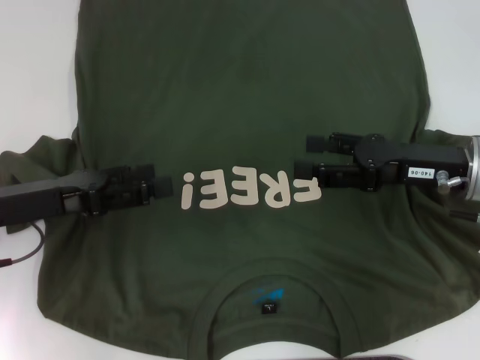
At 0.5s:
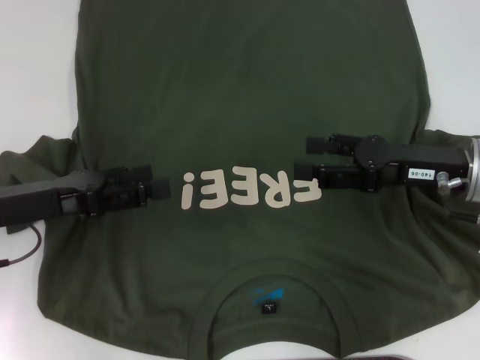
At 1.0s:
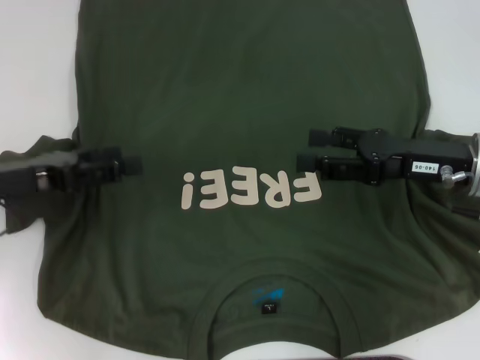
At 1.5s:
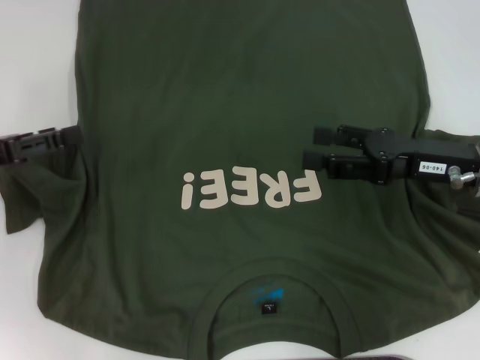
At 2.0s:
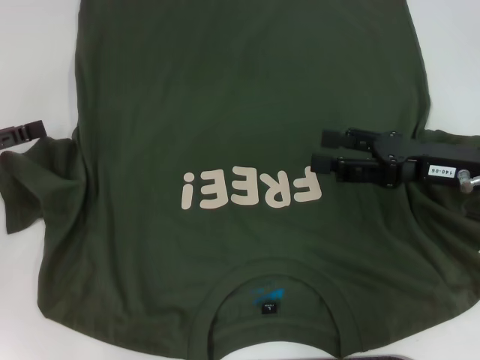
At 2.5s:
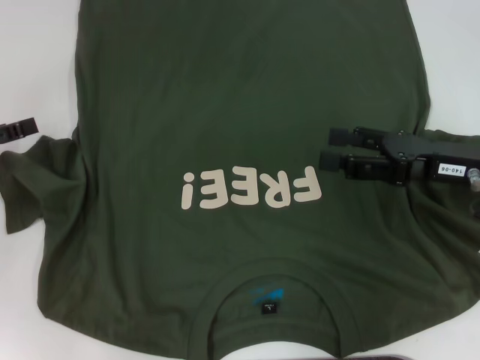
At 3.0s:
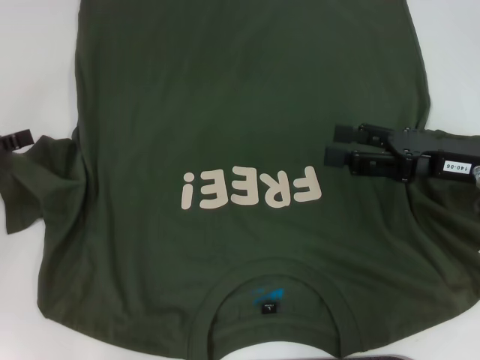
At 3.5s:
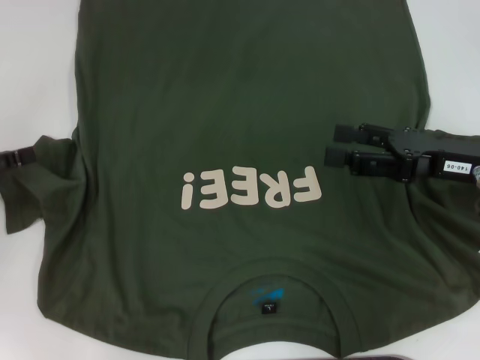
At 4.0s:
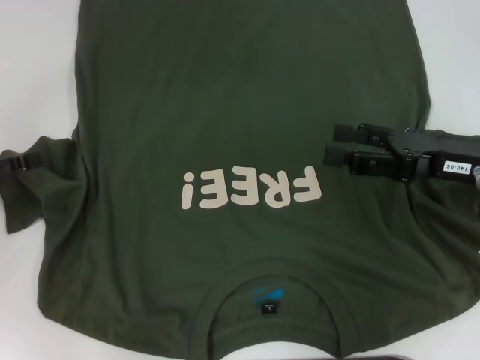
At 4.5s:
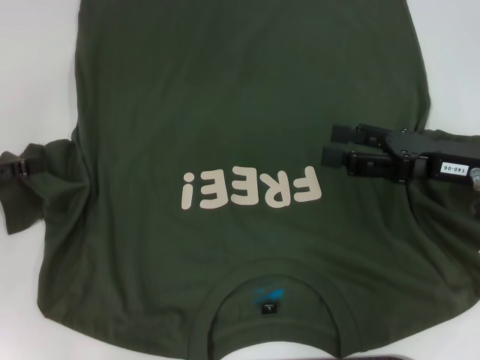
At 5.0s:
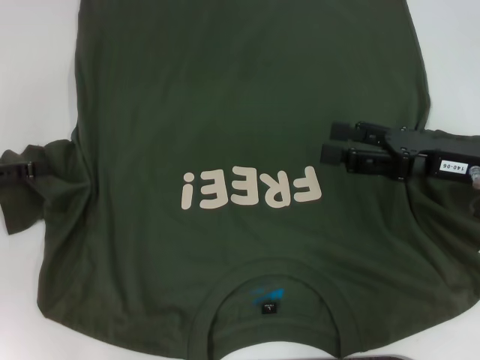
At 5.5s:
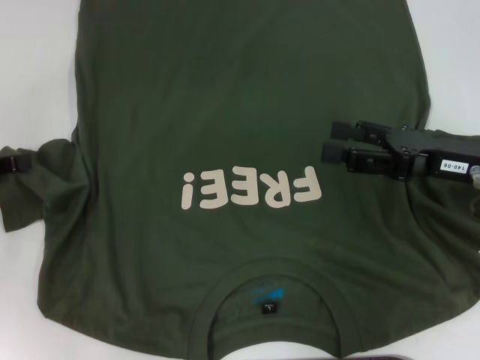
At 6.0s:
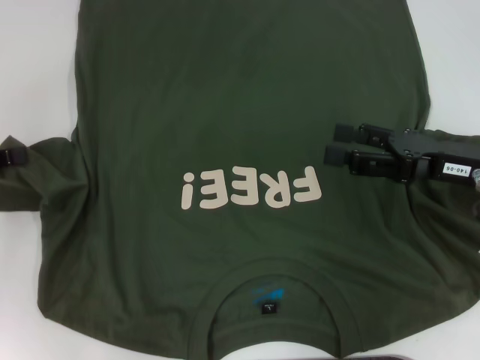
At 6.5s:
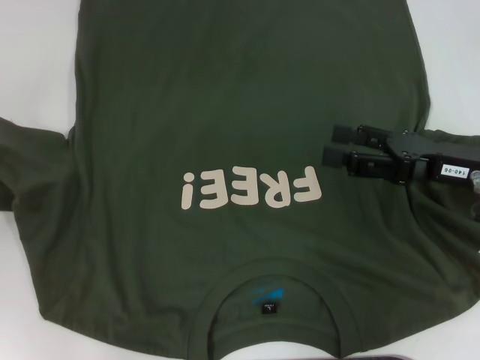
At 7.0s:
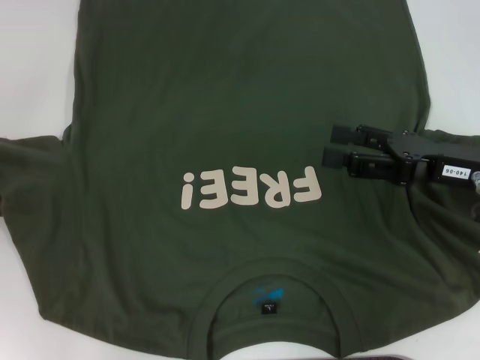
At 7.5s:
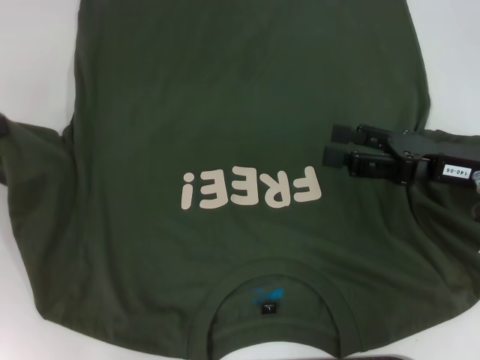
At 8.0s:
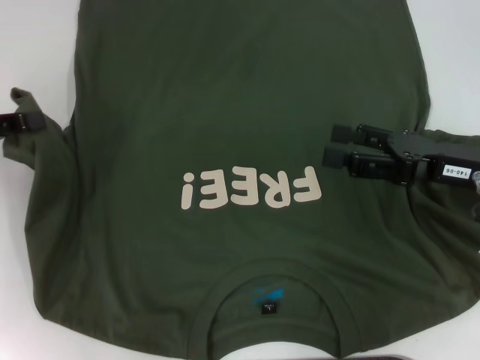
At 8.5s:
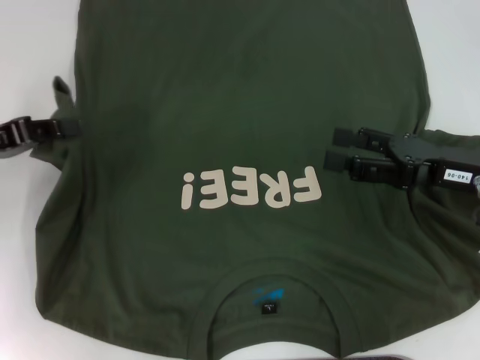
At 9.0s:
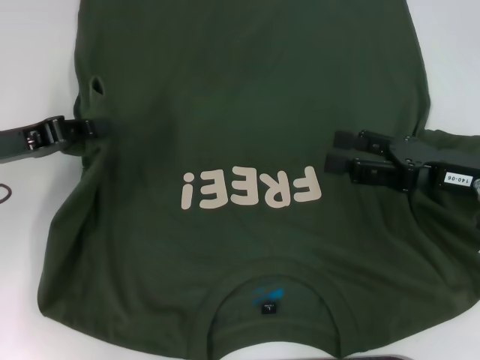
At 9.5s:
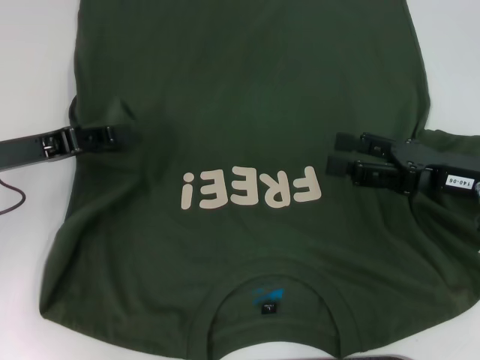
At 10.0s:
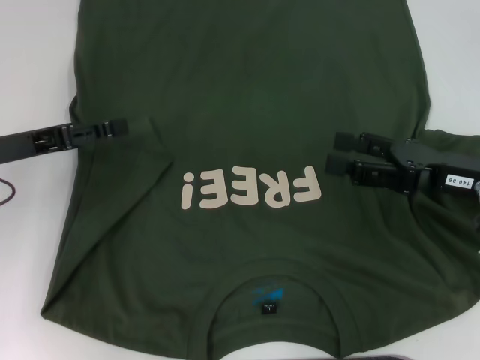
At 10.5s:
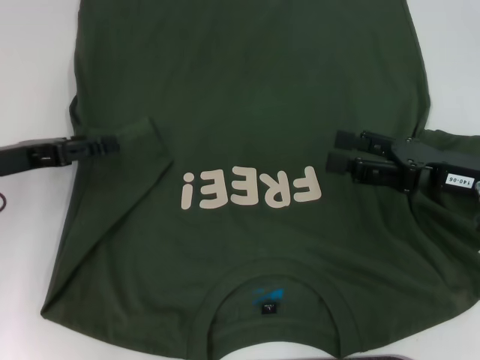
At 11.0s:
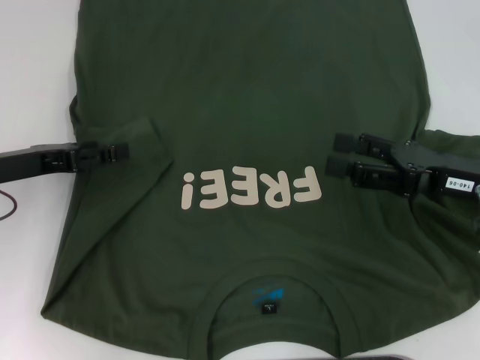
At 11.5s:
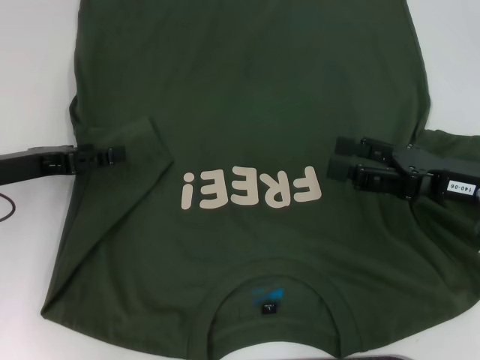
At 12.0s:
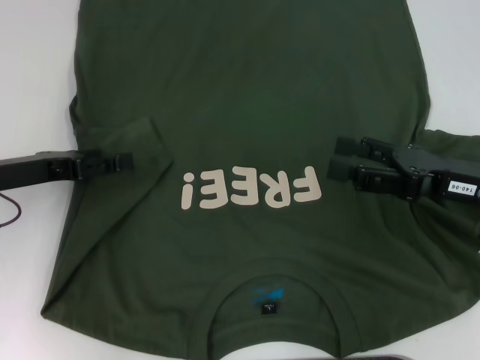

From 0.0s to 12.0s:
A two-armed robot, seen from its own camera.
From 0.0s to 2.0s: The left gripper travels to the left by about 10 cm.
From 2.0s to 4.0s: The grippers make only small movements.
From 4.0s to 6.0s: The left gripper closes up.
From 6.0s to 8.0s: The grippers stay close to where they were, moving slightly.
From 8.0s to 10.0s: The left gripper heads to the right, covering about 5 cm, and opens.
From 10.0s to 12.0s: There are only small adjustments of the grippers.

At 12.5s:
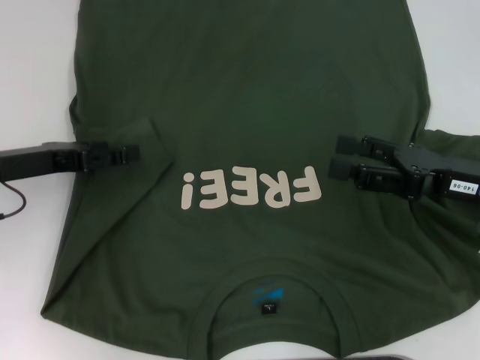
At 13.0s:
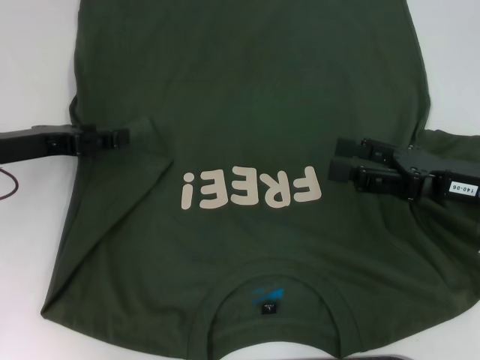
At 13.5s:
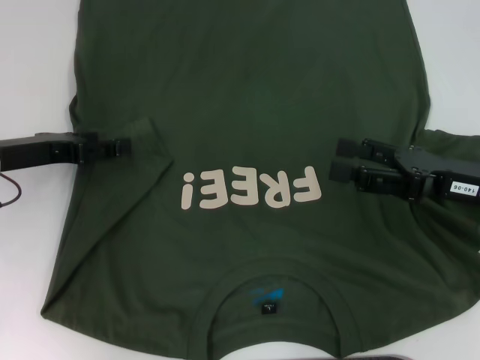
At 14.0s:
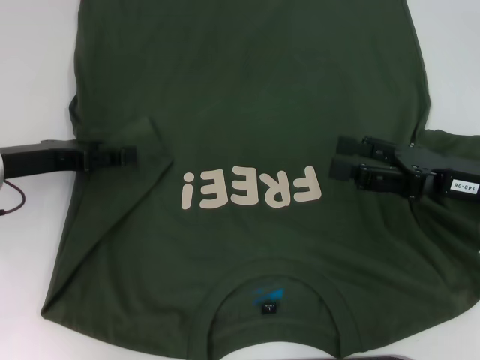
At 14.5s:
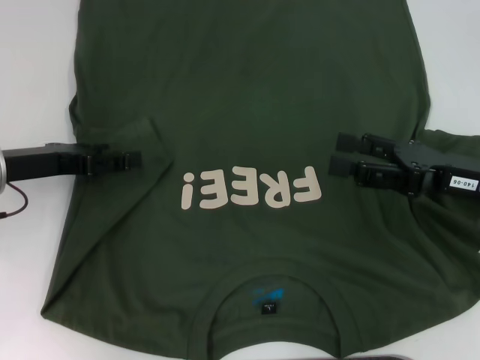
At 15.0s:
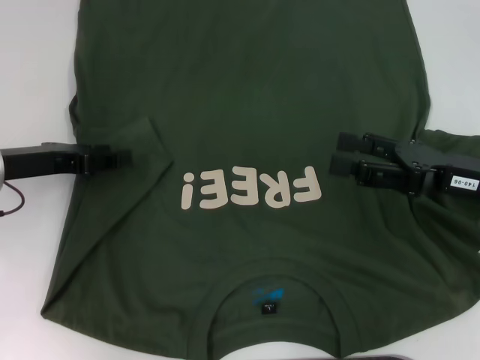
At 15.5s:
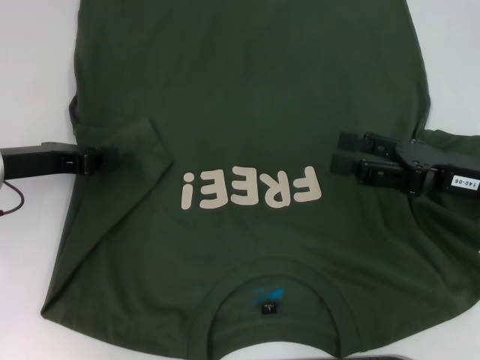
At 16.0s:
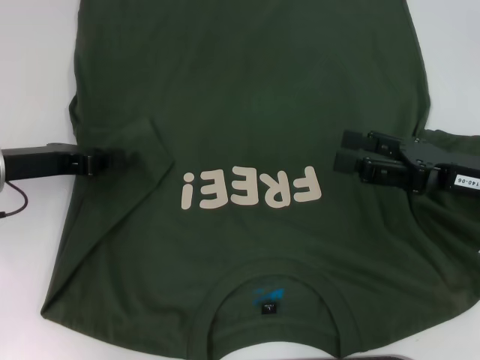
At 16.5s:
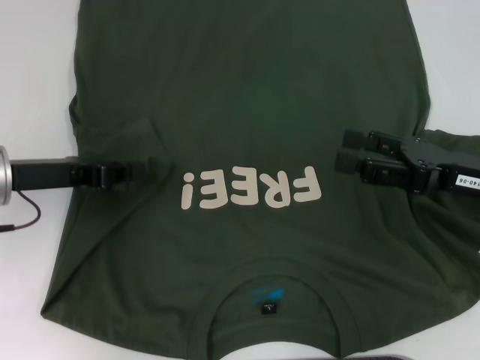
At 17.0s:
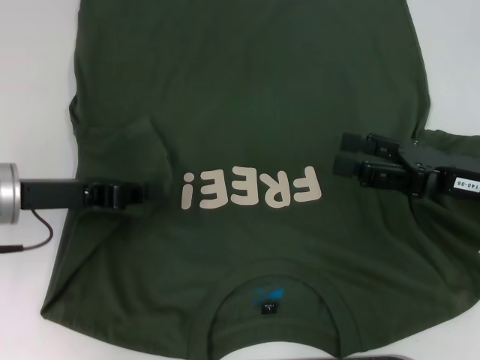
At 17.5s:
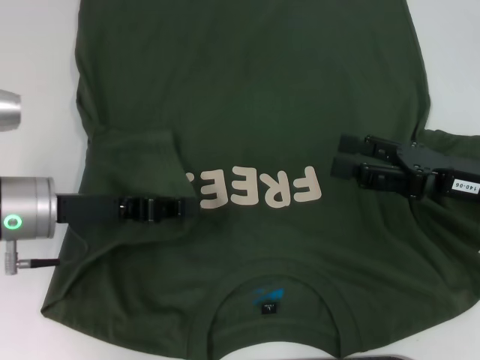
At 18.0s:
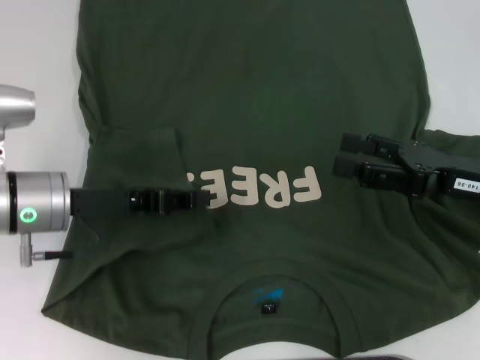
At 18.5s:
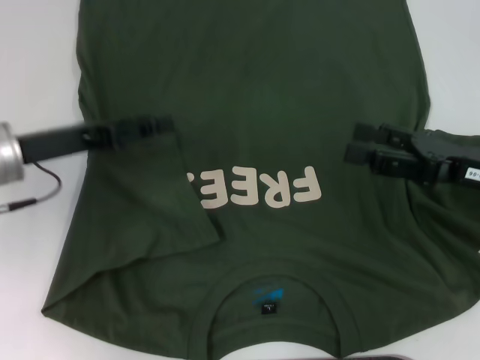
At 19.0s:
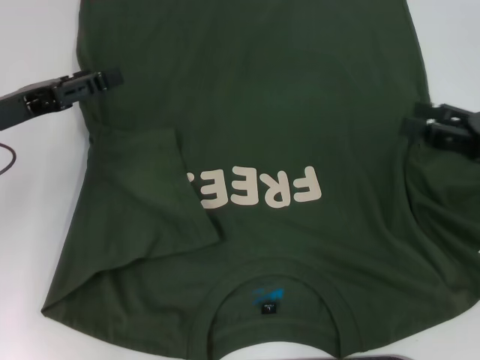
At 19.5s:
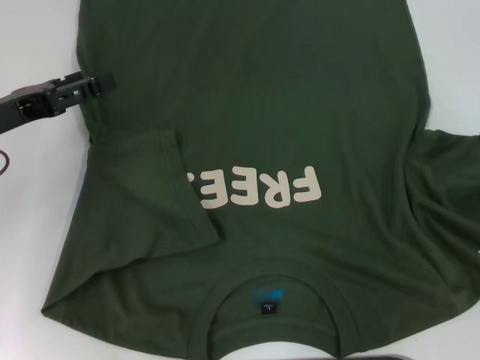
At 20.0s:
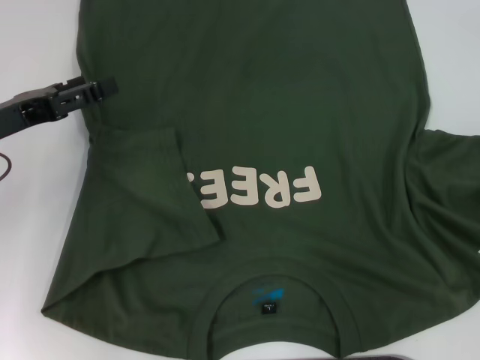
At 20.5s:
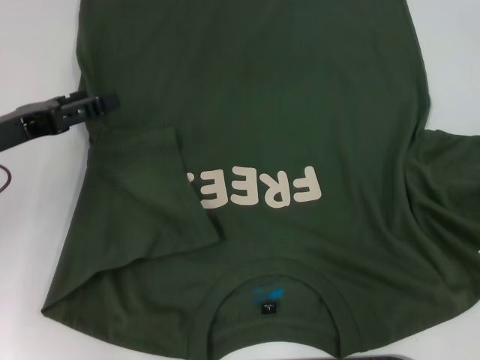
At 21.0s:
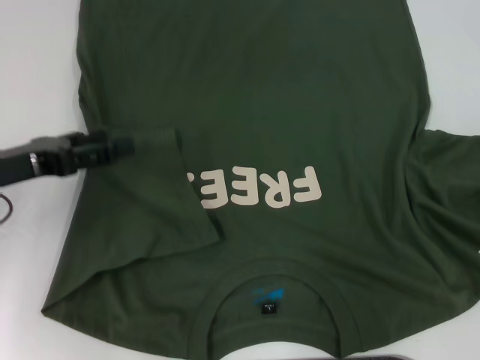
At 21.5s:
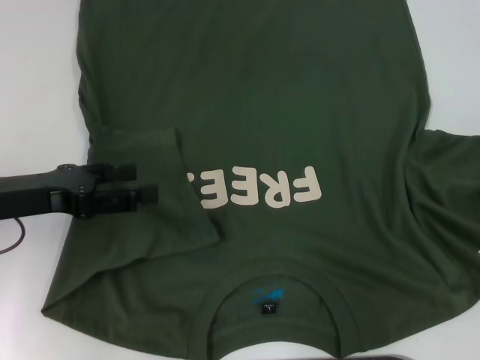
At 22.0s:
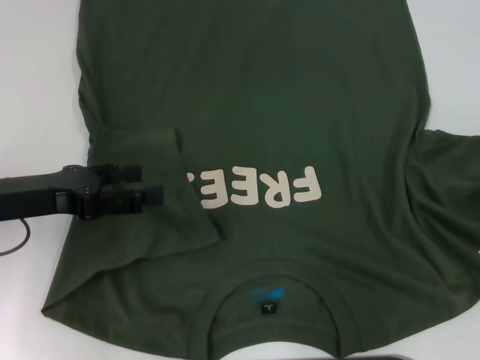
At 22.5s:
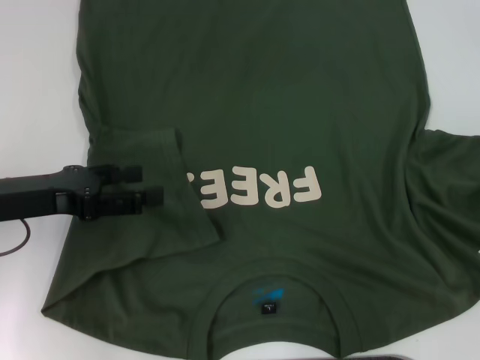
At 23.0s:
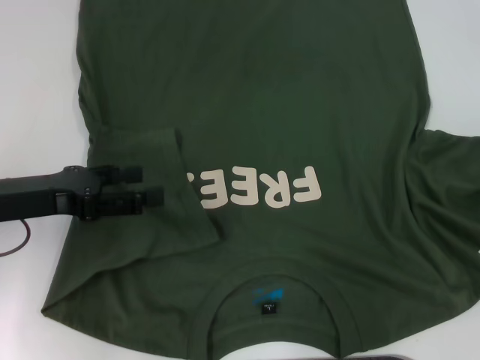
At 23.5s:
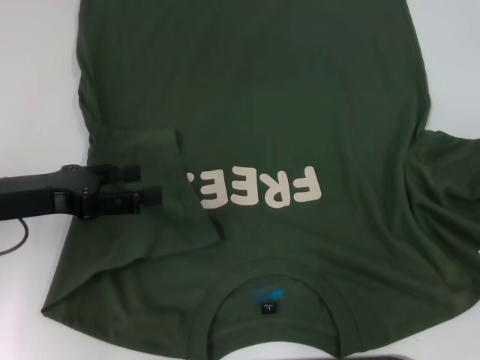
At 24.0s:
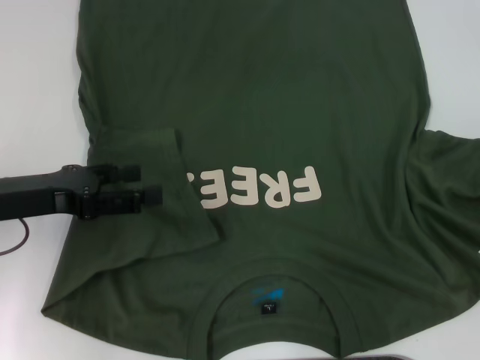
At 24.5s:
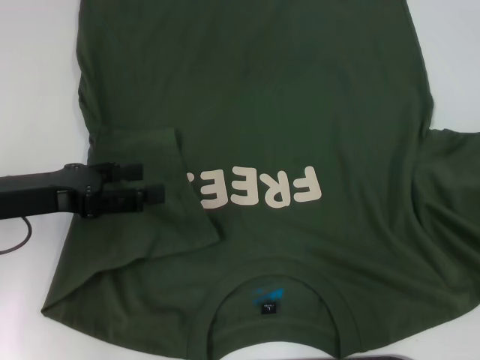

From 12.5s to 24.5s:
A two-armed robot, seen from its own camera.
Step, from 12.5s to 22.0s: Fold the bottom left sleeve with your left hand.
From 12.5s to 14.5s: There are only small adjustments of the grippers.
From 14.5s to 16.5s: The left gripper closes.
From 16.5s to 18.5s: The left gripper opens.
From 18.5s to 20.5s: The left gripper opens up. The right gripper moves to the right, roughly 15 cm.
From 22.5s to 24.5s: The right gripper closes.

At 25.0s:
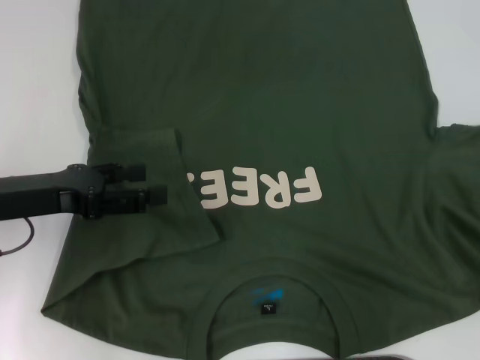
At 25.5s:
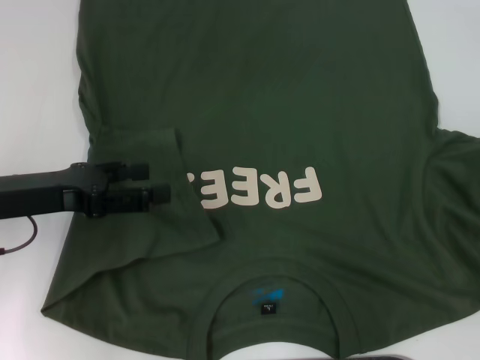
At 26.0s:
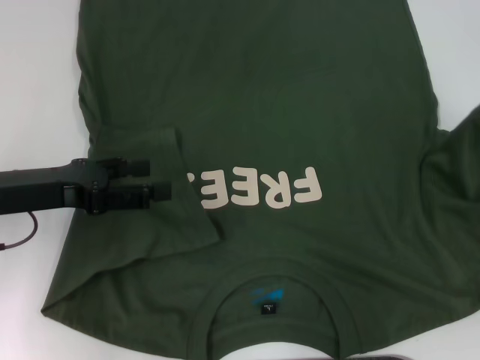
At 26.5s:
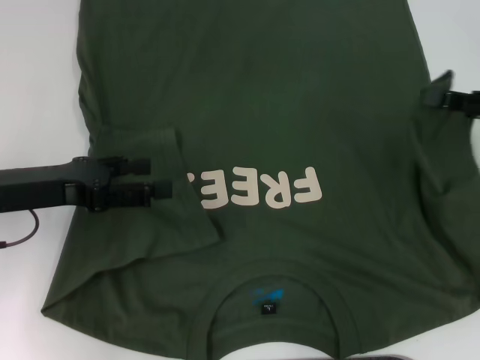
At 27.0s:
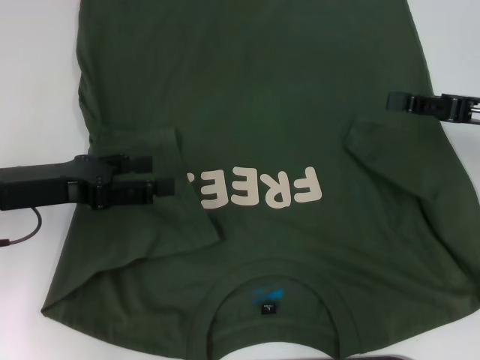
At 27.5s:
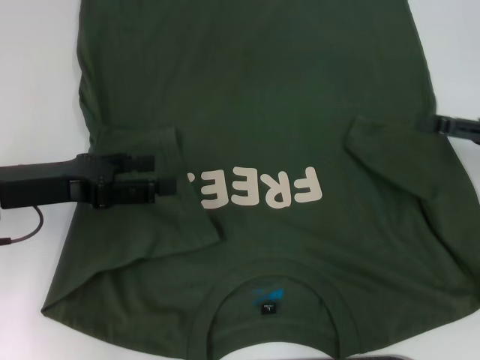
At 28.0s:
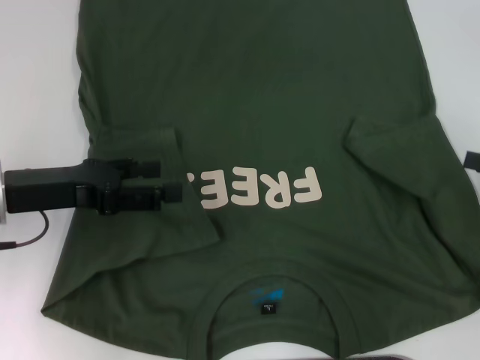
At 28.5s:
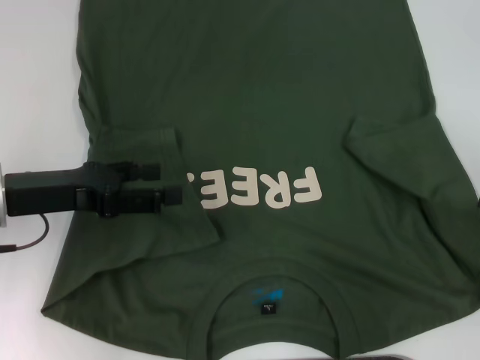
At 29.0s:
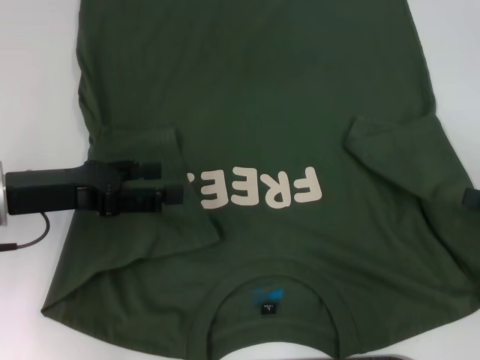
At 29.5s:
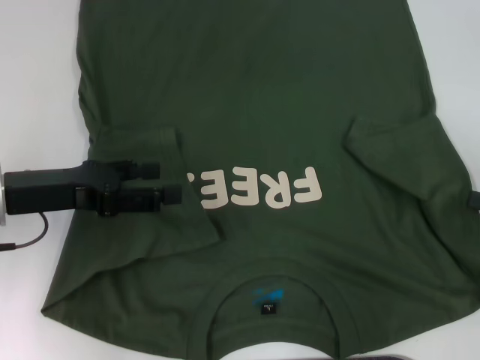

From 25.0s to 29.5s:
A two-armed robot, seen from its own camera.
From 25.0s to 27.0s: The right gripper shifts roughly 15 cm to the left and forward.
From 27.0s to 29.5s: The right gripper is displaced backward and to the right by roughly 10 cm, and opens.
